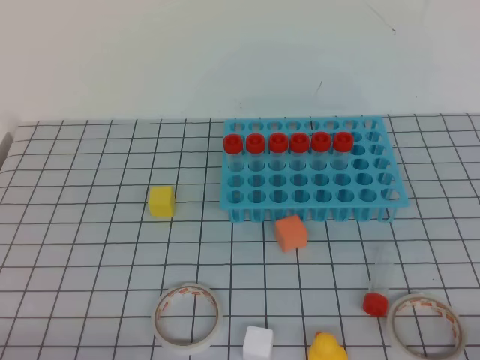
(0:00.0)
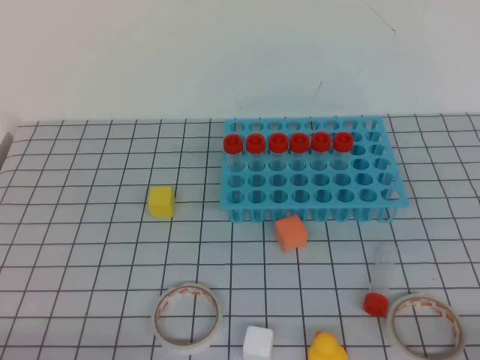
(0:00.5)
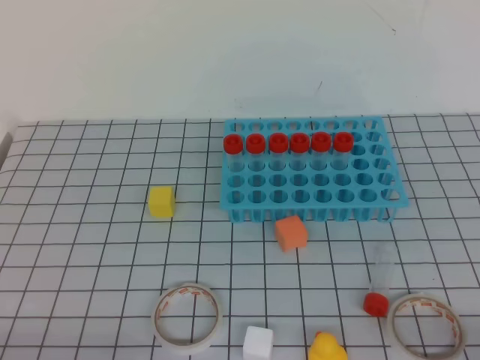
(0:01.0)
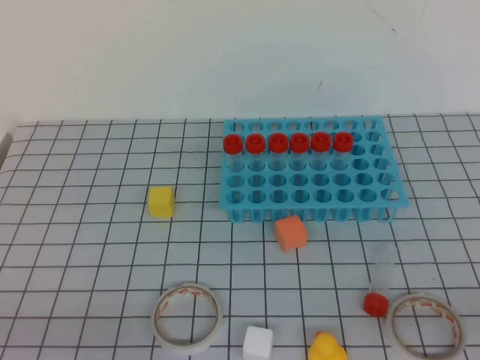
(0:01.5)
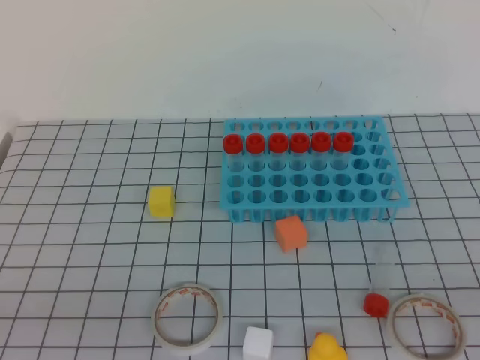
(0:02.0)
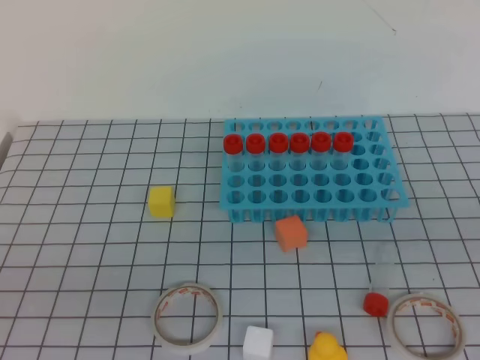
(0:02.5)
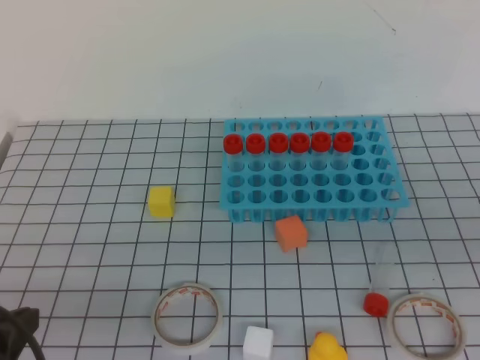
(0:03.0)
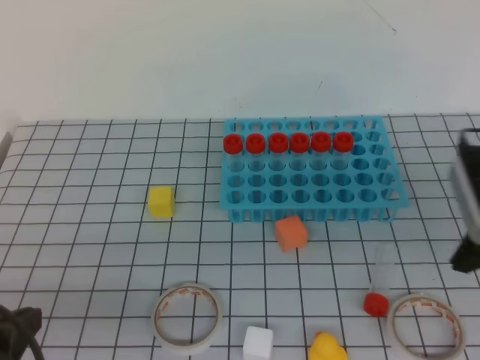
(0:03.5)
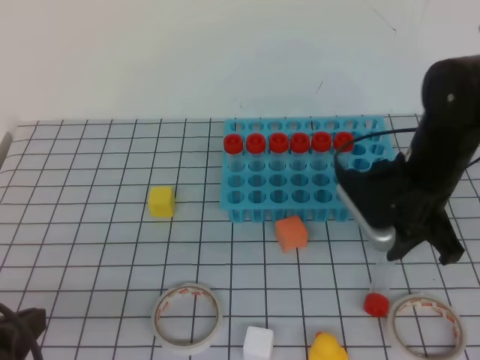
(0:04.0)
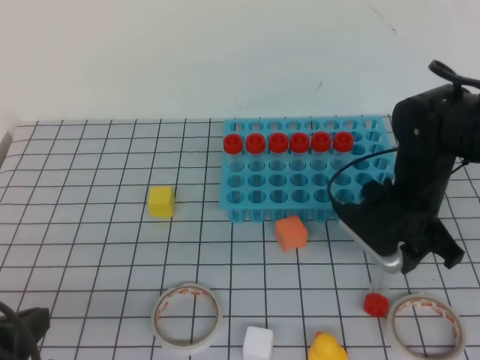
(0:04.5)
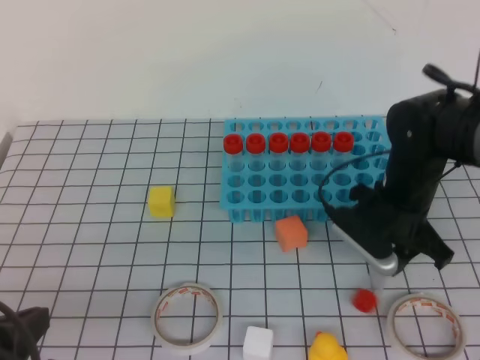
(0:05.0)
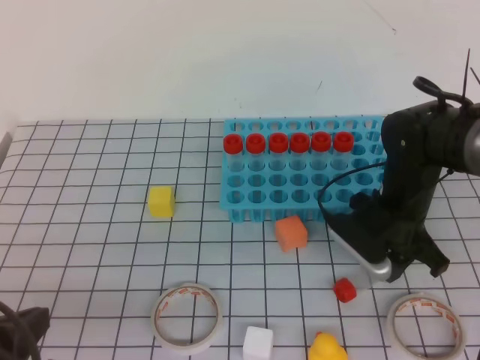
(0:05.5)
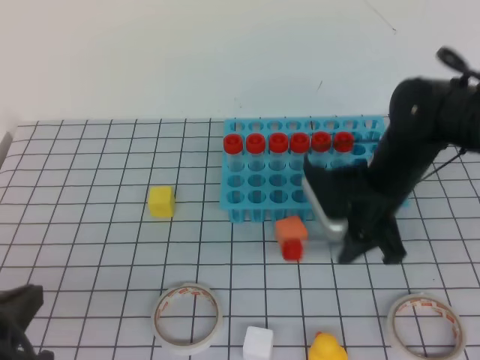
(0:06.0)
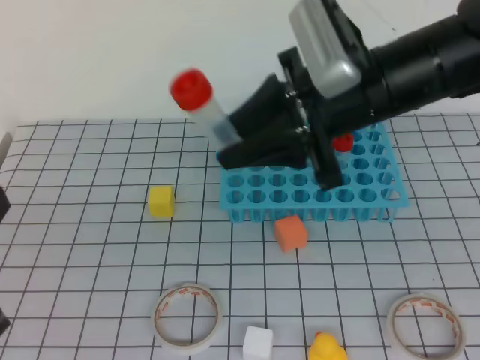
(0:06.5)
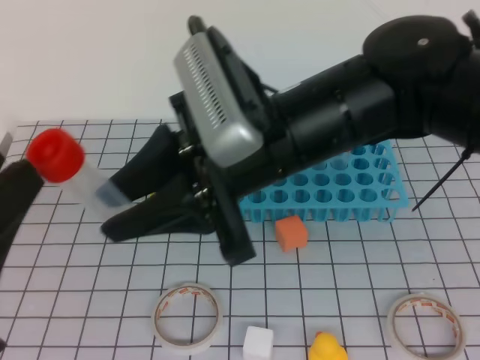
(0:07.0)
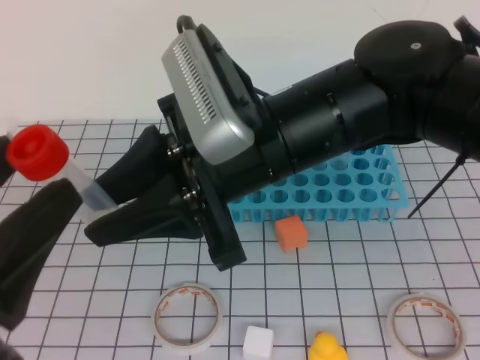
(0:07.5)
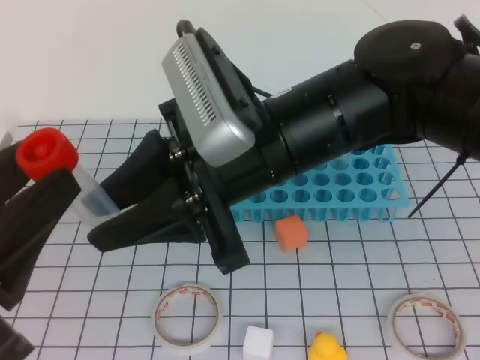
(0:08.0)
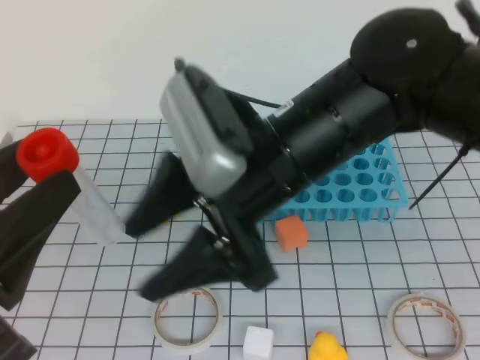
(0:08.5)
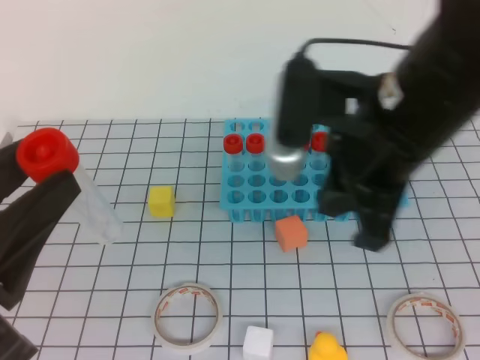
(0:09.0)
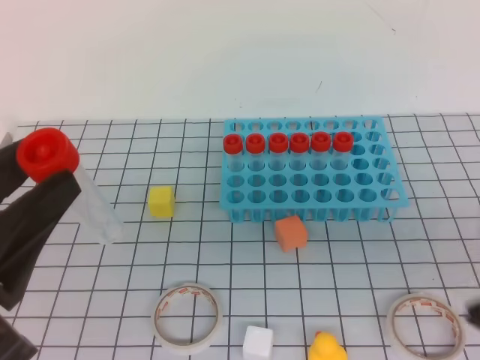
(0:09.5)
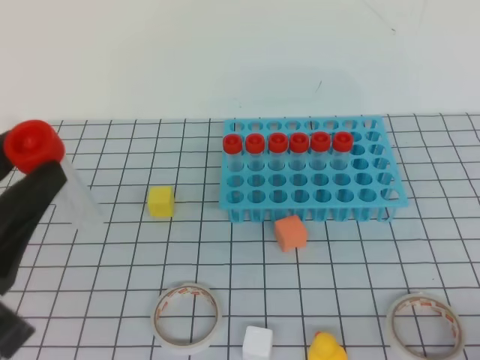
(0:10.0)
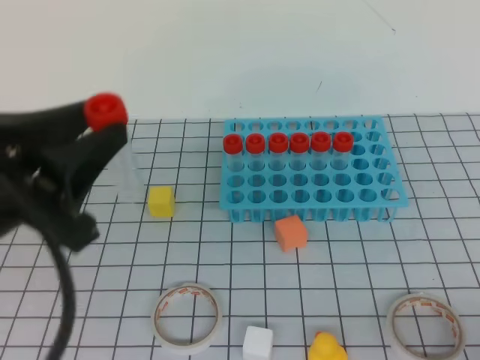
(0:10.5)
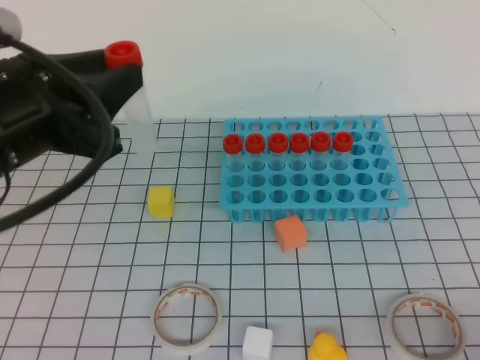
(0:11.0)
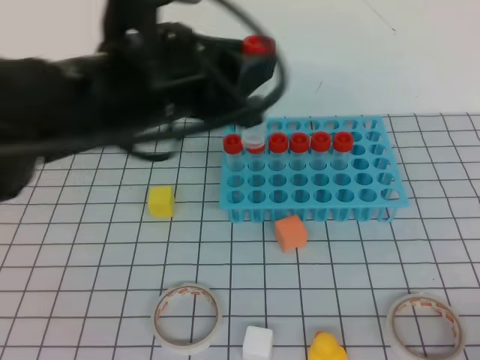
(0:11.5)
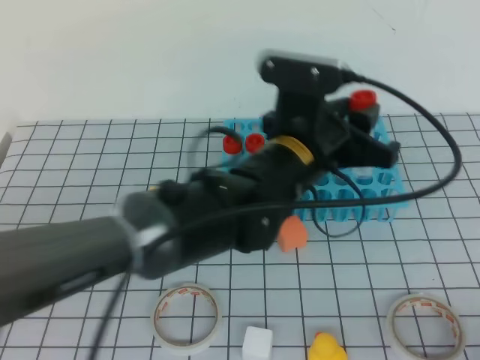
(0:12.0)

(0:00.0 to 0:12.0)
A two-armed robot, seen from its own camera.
0:02.0 - 0:04.0: The right gripper is displaced forward and to the left by approximately 35 cm, and opens up; the left gripper goes some 5 cm forward.
0:04.0 - 0:06.0: The right gripper moves roughly 5 cm.
0:06.0 - 0:08.0: The right gripper travels upward, to the left and backward by some 25 cm; the left gripper moves upward, some 10 cm, and opens up.
0:08.0 - 0:10.0: The right gripper moves to the right and backward, roughly 30 cm, and closes.
0:10.0 - 0:12.0: The left gripper shifts approximately 30 cm to the right and forward.

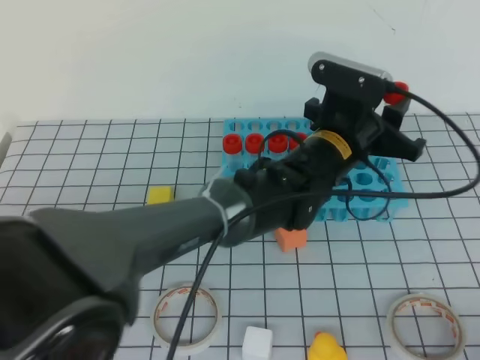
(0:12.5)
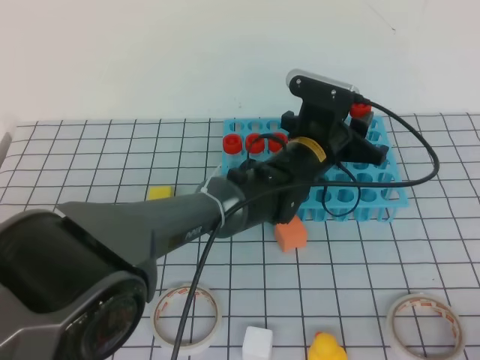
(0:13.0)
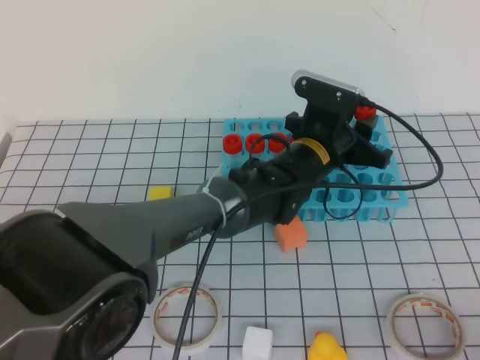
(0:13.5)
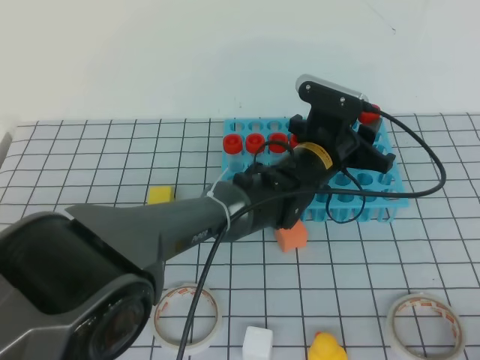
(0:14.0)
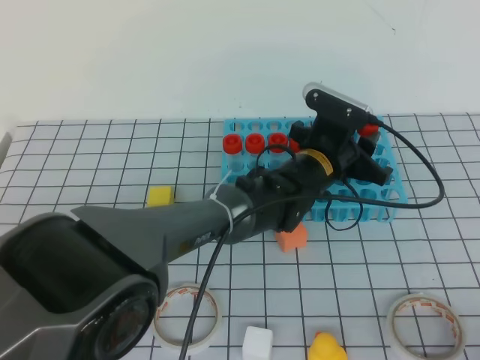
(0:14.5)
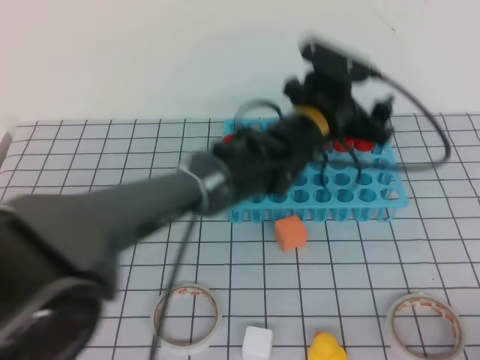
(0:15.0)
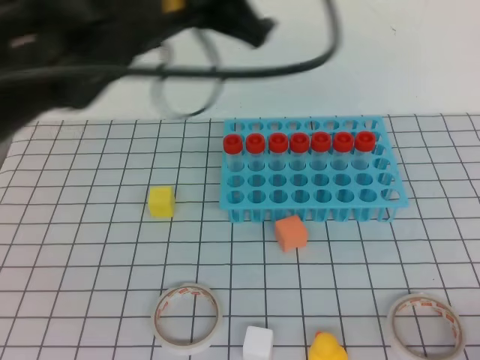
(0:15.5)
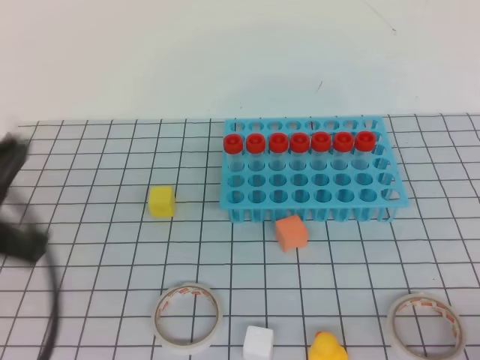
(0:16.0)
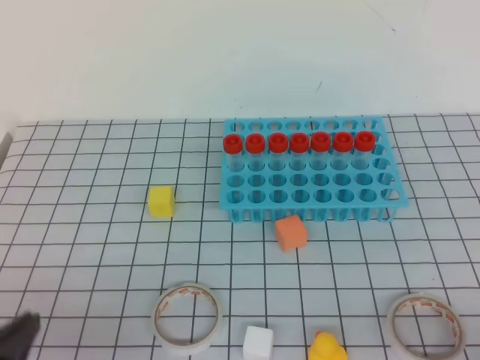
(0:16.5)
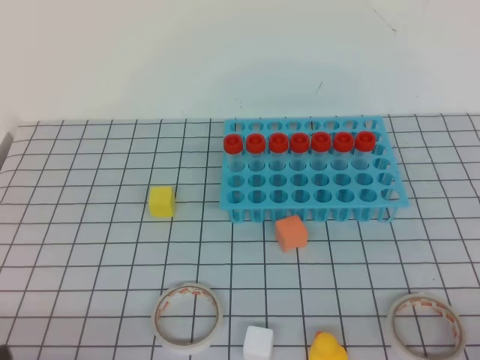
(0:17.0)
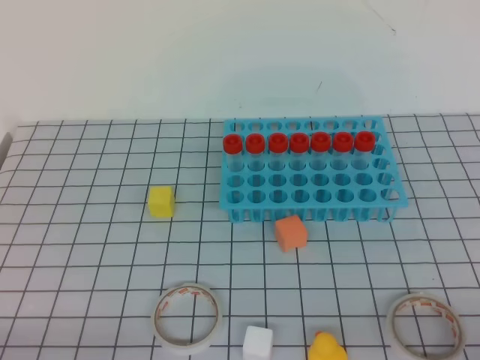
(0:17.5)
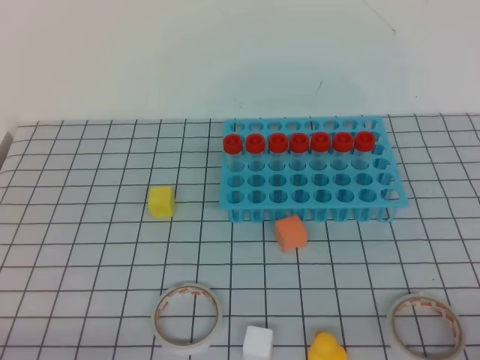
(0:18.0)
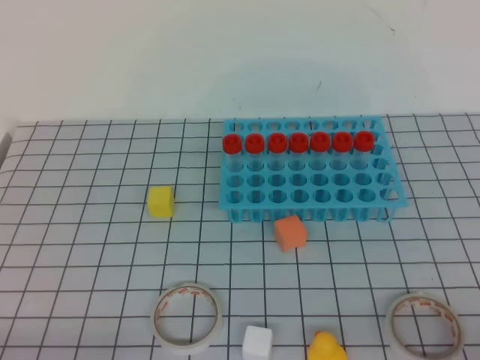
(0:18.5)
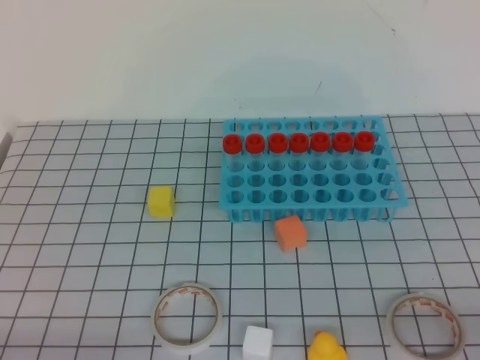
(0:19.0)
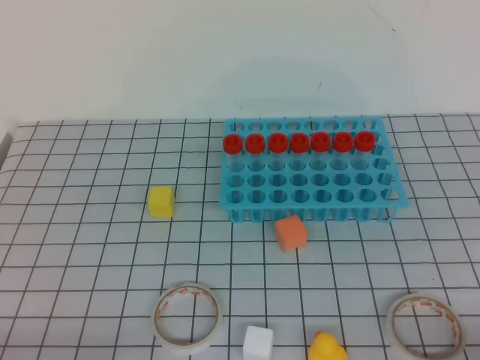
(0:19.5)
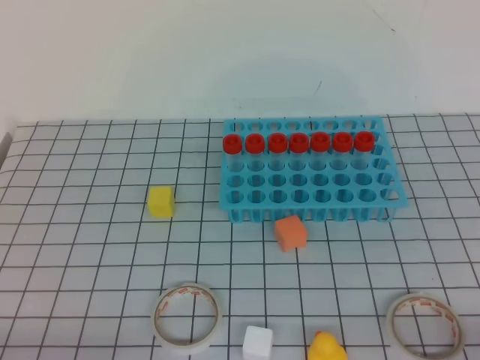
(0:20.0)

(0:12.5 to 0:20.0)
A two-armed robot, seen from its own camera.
0:12.5 - 0:14.5: The left gripper heads downward, covering some 5 cm.
0:14.5 - 0:16.5: The left gripper is displaced to the left and backward by about 40 cm, and closes its fingers.
0:16.5 - 0:18.0: The left gripper moves downward and backward, about 5 cm.
